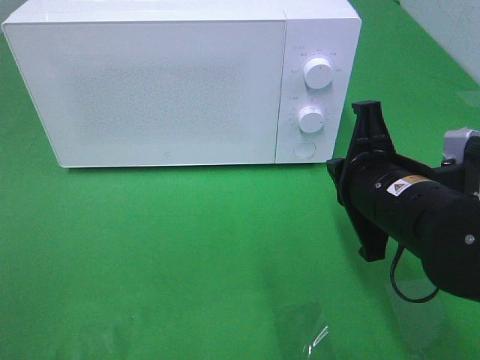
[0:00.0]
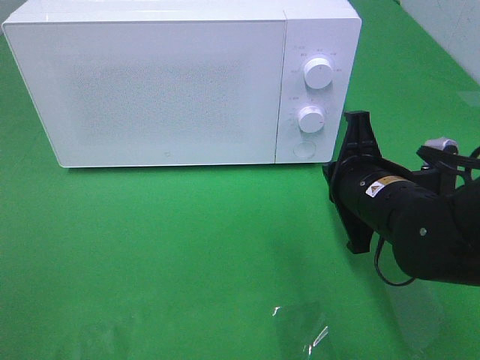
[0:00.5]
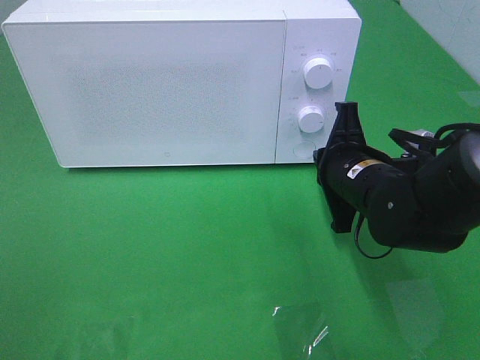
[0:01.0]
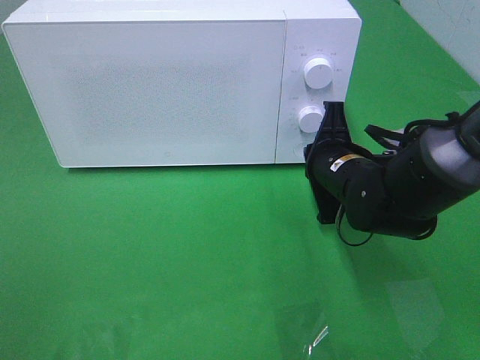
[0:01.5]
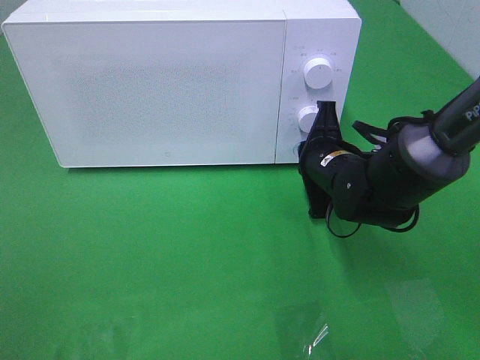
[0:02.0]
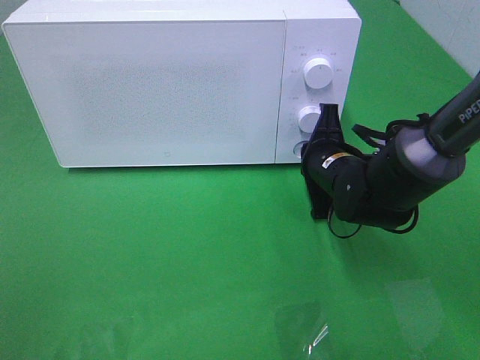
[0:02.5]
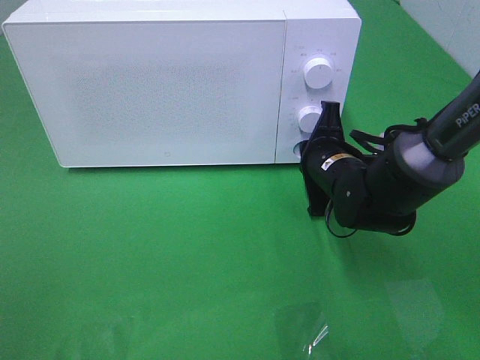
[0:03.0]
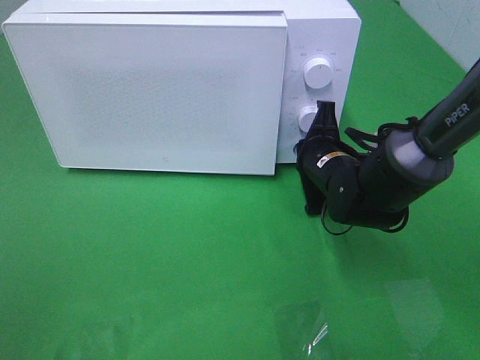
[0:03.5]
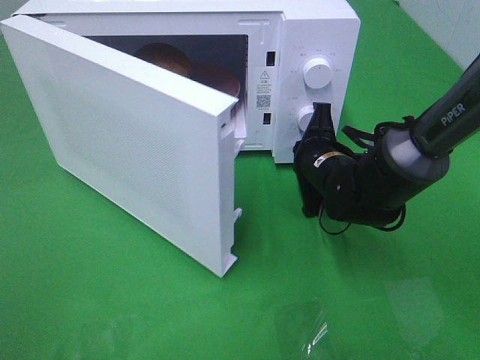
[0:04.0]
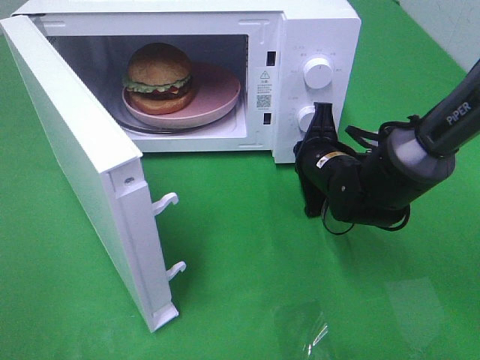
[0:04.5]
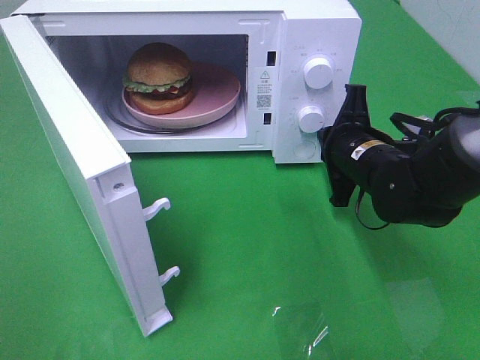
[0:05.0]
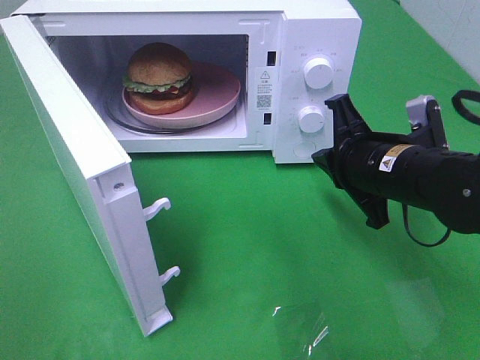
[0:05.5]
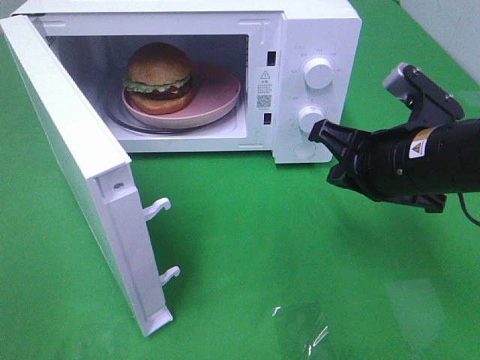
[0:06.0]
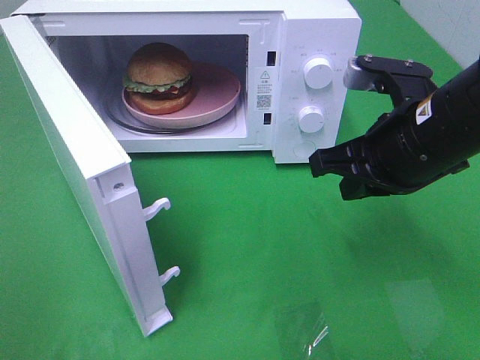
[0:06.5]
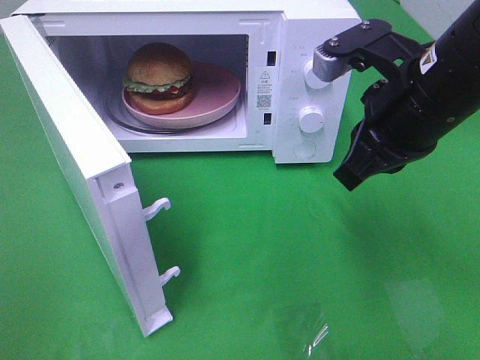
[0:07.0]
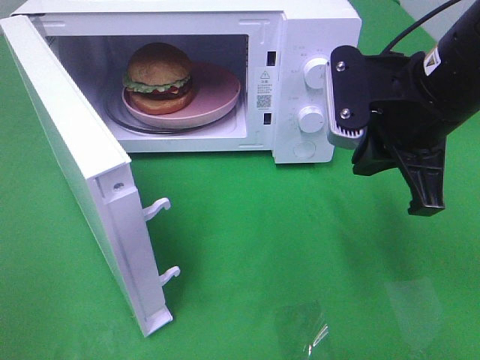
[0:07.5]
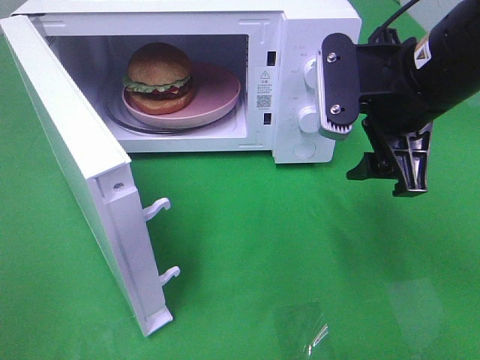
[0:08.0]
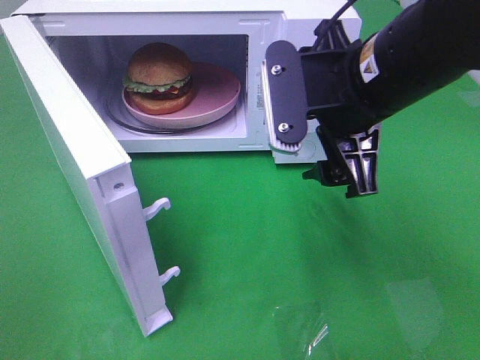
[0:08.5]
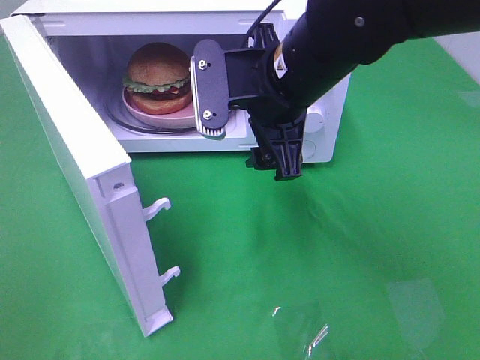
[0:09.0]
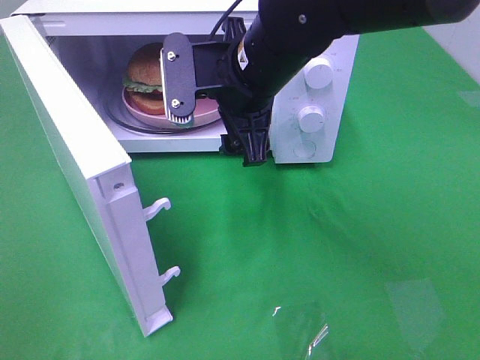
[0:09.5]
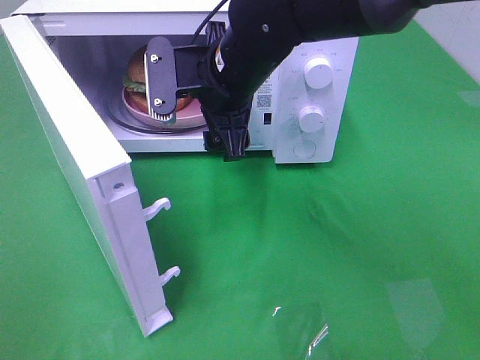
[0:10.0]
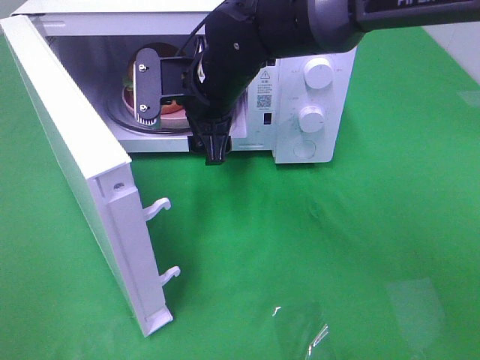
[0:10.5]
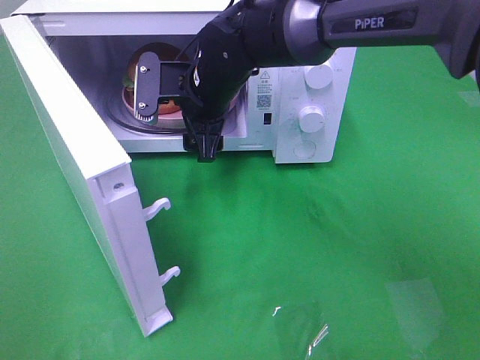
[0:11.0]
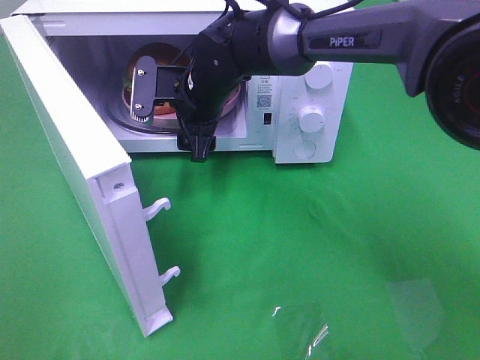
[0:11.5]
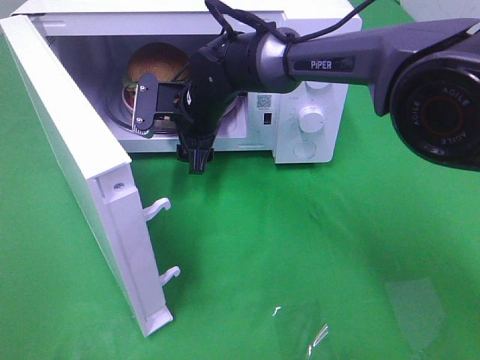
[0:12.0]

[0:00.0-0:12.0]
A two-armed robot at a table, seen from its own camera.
Task of the whole recording: Heat the burger.
Step, 0.0 to 5.0 s: Right hand: press the switch.
0.0 to 2.0 s: The right gripper travels forward and downward by approximately 15 cm.
4.0 to 6.0 s: The right gripper moves backward and upward, approximately 15 cm.
6.0 to 8.0 s: The right gripper is displaced upward by about 10 cm, and opens its fingers.
8.0 to 10.0 s: The right gripper moves to the left and forward, some 15 cm.
10.0 to 12.0 s: The right gripper heads downward and forward, covering about 10 cm.

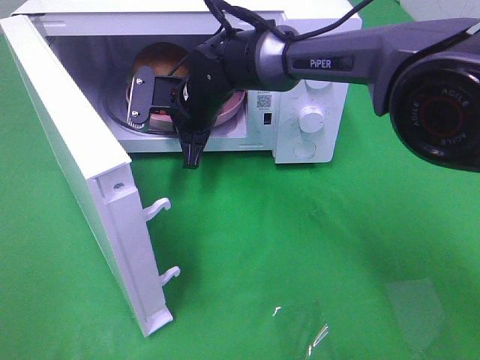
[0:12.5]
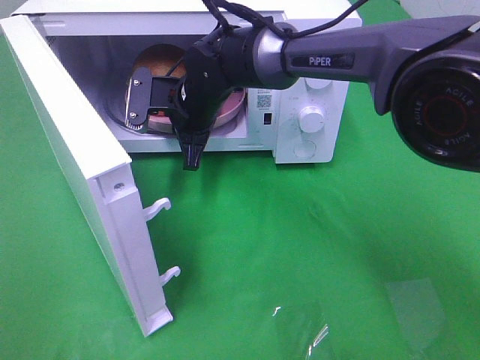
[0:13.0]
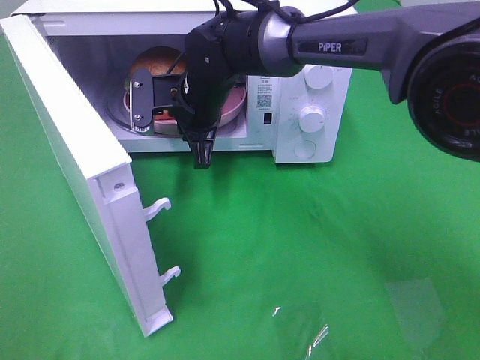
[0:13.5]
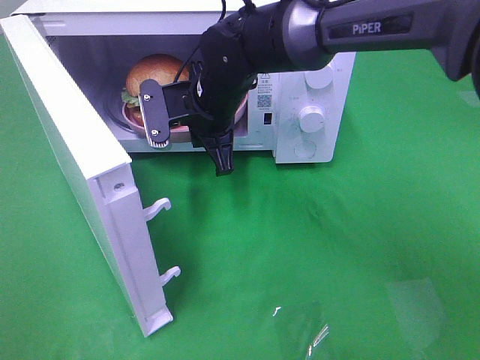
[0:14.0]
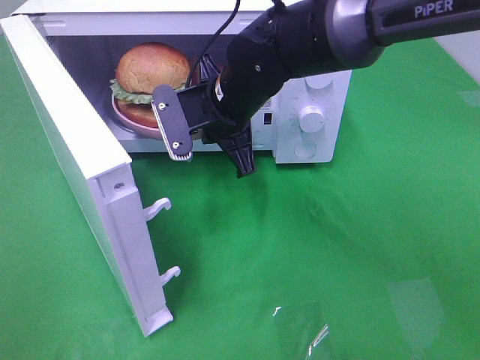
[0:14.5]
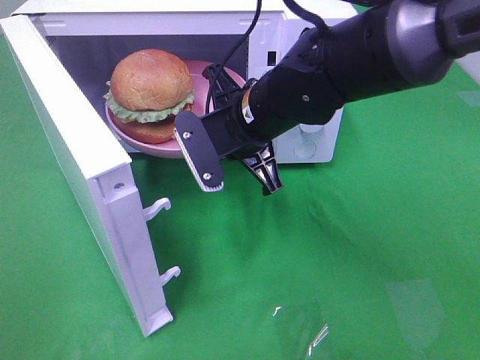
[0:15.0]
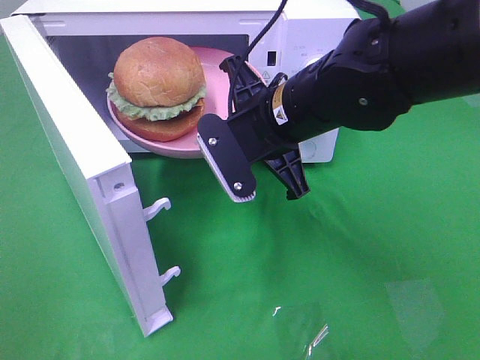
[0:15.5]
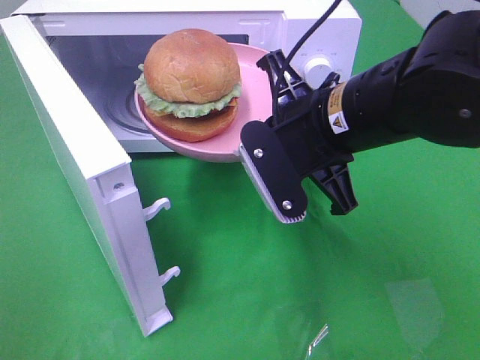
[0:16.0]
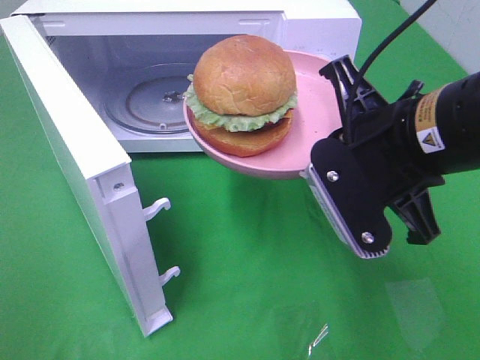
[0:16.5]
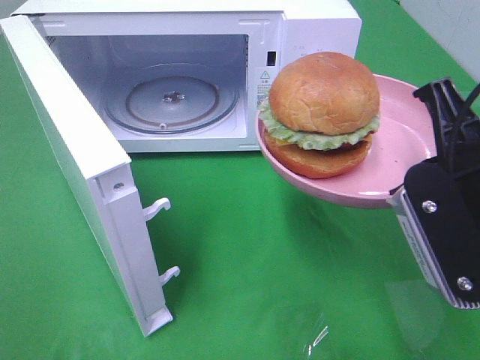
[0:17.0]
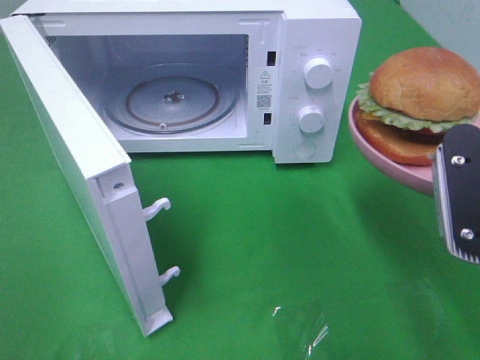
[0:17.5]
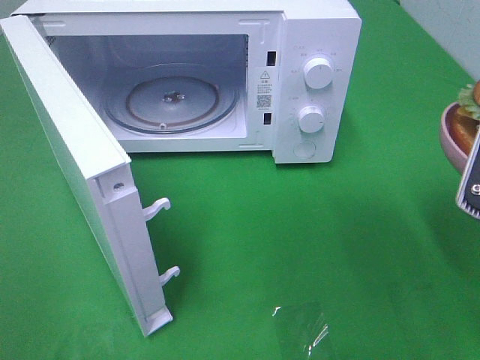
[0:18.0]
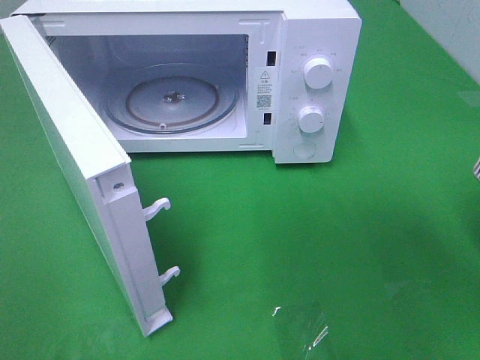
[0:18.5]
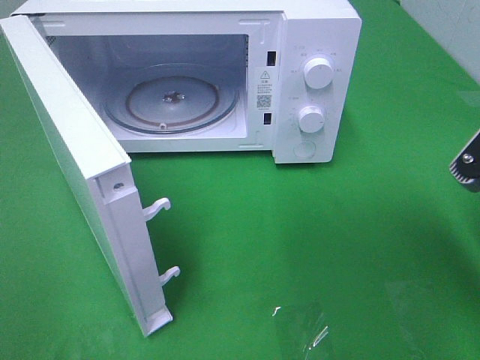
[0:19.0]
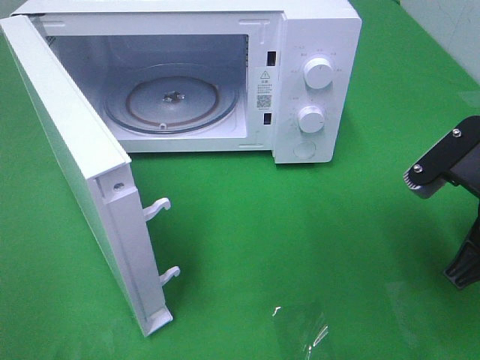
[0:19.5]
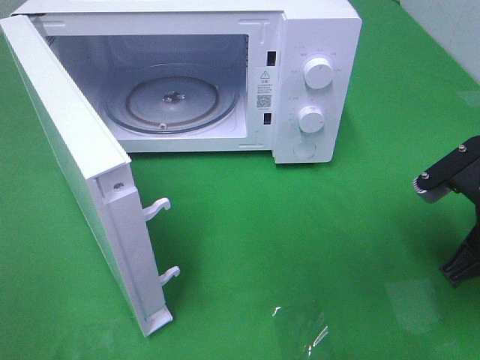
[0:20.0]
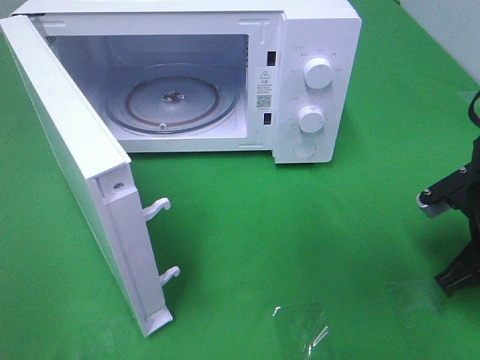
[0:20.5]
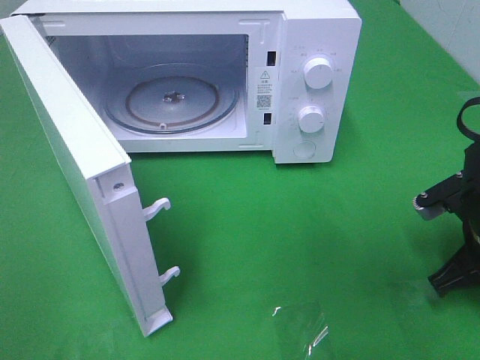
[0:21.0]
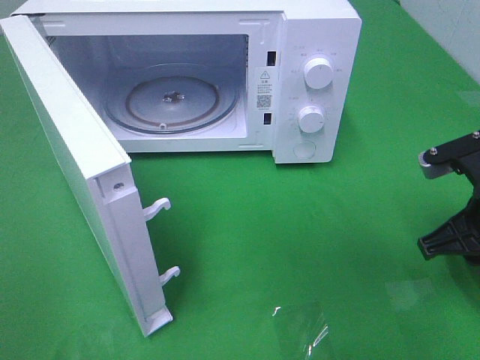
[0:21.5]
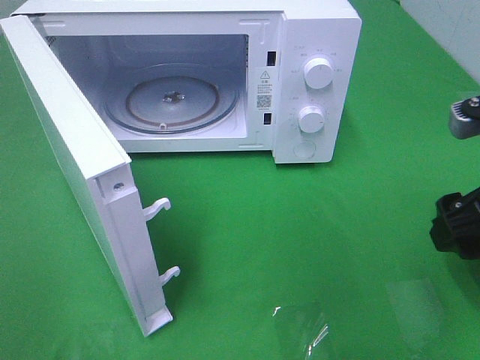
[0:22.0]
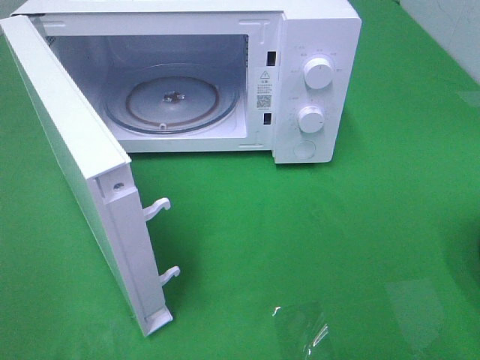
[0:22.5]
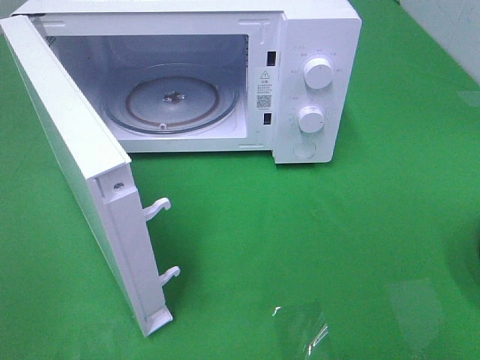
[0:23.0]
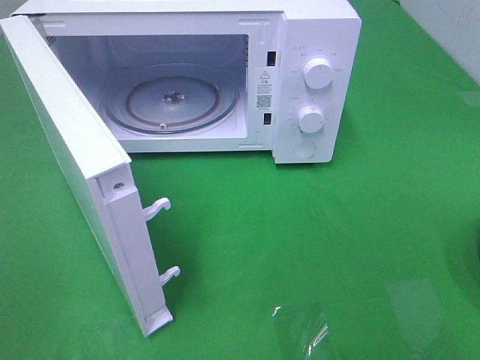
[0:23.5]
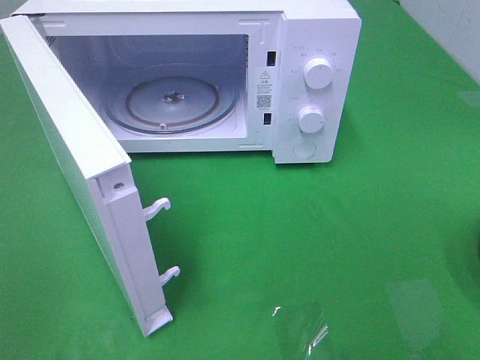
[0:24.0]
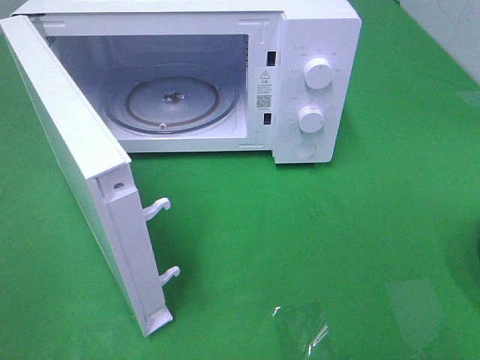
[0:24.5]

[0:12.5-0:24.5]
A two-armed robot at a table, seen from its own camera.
Task of the whole recording: Heat the burger.
Step, 13.5 to 21.5 s: Right hand: place the plate on the table.
12.5 to 14.5 s: The right gripper heads backward, covering approximately 5 cm.
14.5 to 16.5 s: The right gripper travels backward, to the right and upward by some 20 cm.
16.5 to 18.5 s: The right gripper travels to the right and backward by some 10 cm.
18.5 to 20.5 s: The right gripper goes roughly 15 cm downward and forward.
20.5 to 22.5 s: The right gripper goes approximately 20 cm upward and backward, and opens up.

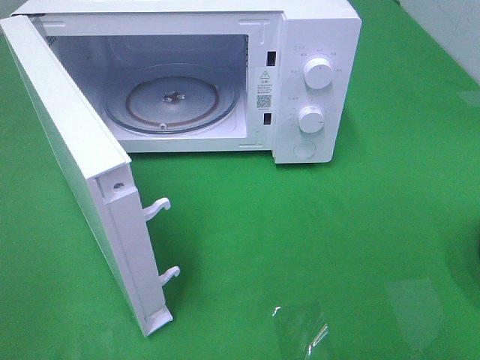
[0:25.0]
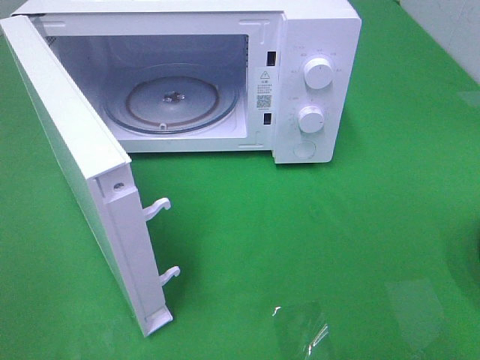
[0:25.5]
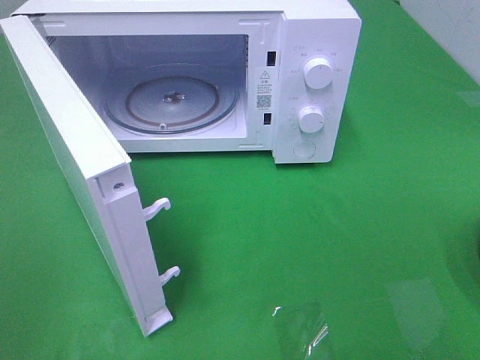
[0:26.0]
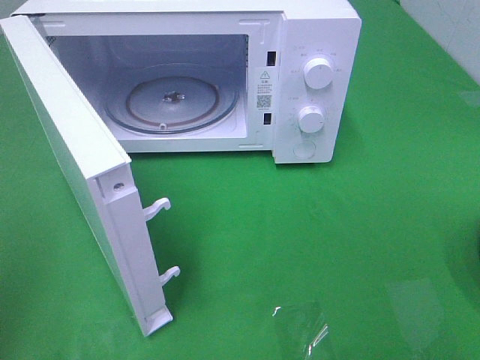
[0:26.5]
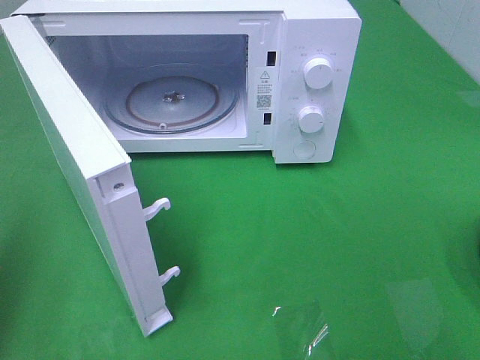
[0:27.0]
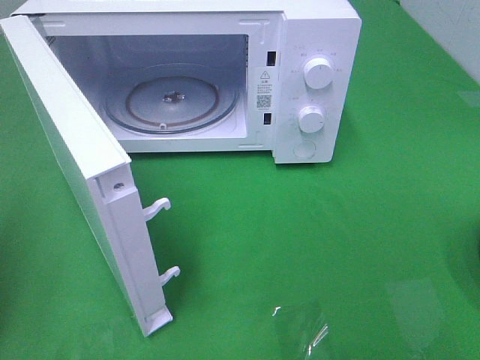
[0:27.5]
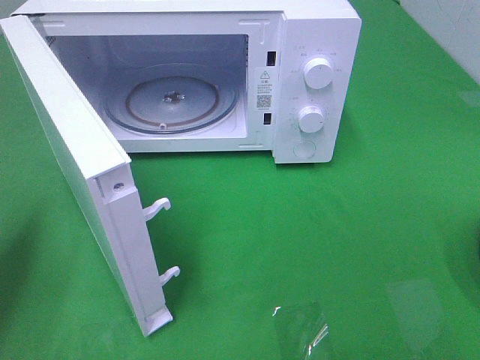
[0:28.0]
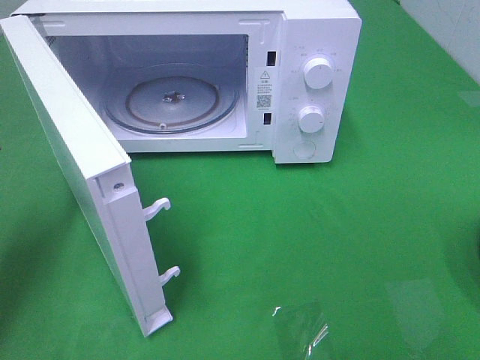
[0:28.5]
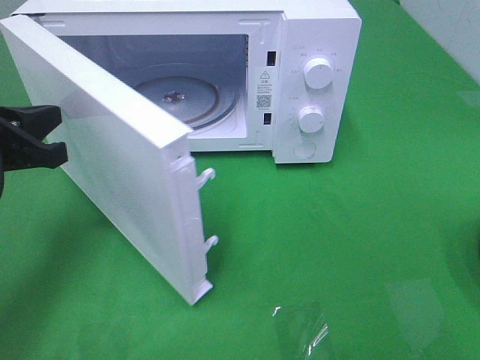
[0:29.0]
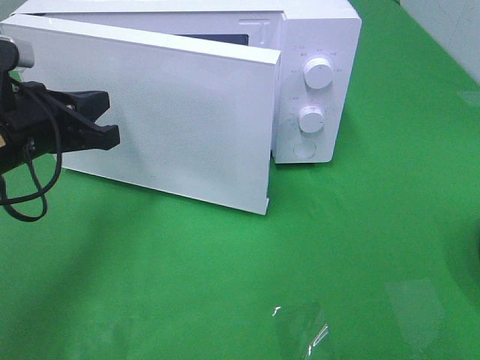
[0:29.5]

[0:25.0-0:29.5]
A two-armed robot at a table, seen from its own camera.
Task of the whole recording: Heat the burger.
25.0 to 27.0 s: The left gripper moves forward, about 15 cm, and closes its fingers.
27.0 to 29.5 s: The left gripper travels forward, to the right and downward by about 20 cm.
